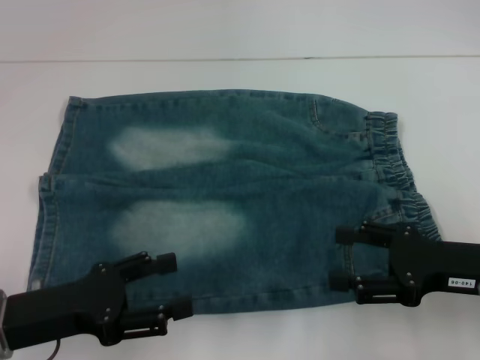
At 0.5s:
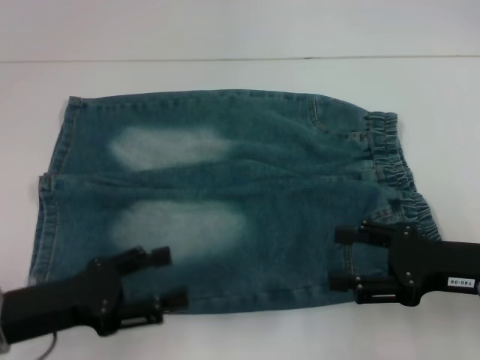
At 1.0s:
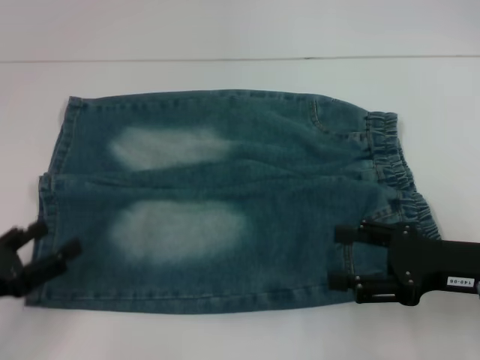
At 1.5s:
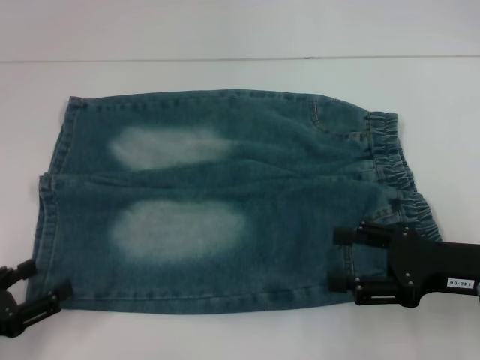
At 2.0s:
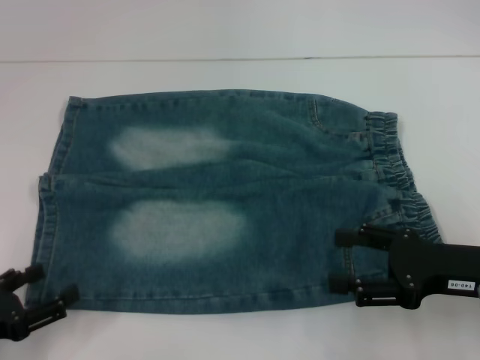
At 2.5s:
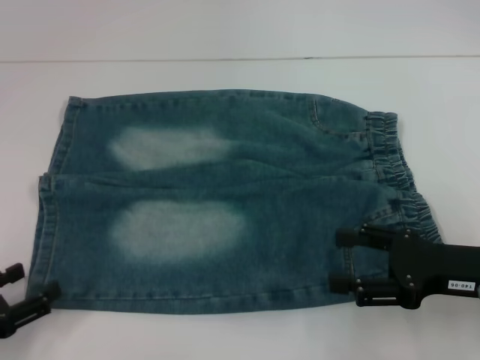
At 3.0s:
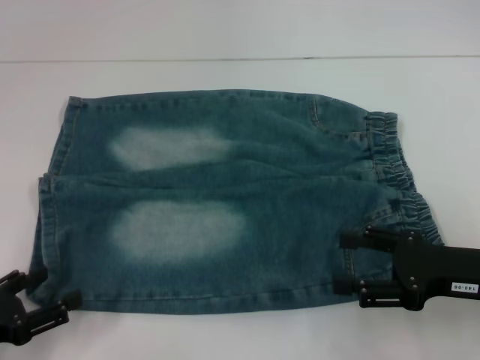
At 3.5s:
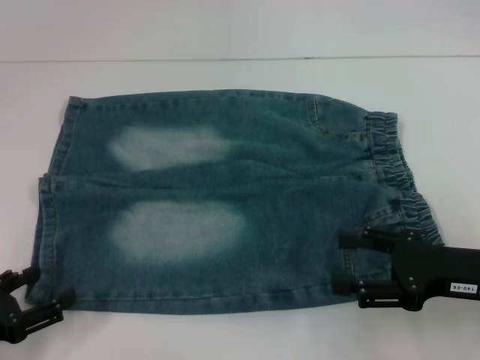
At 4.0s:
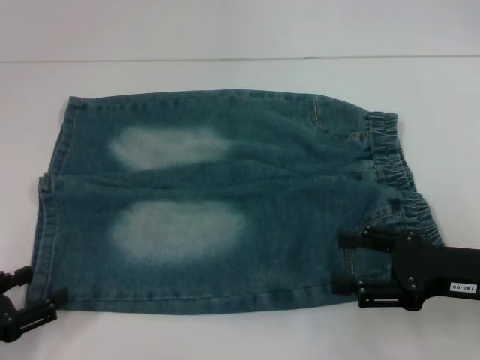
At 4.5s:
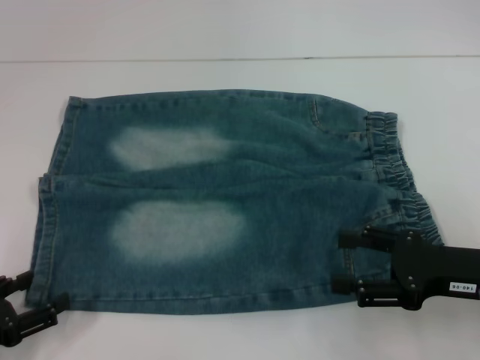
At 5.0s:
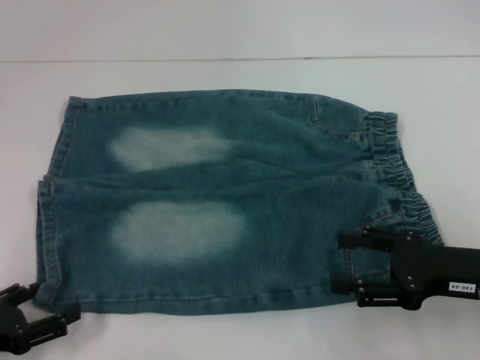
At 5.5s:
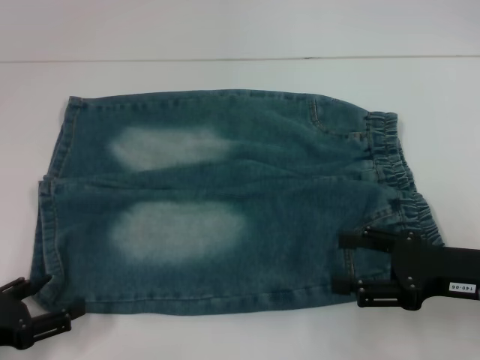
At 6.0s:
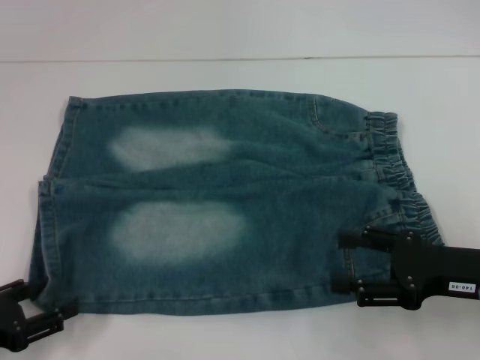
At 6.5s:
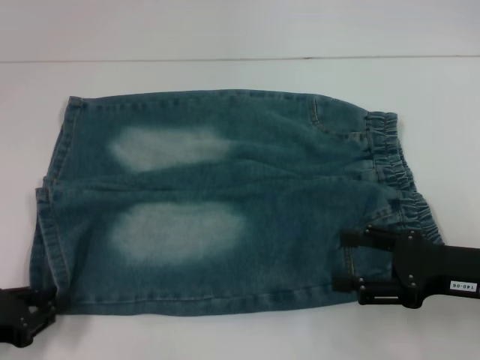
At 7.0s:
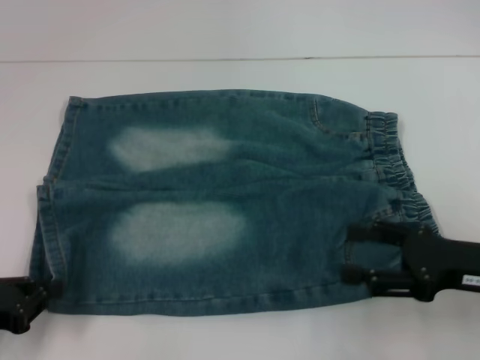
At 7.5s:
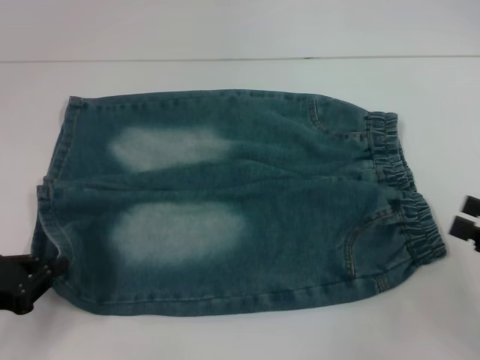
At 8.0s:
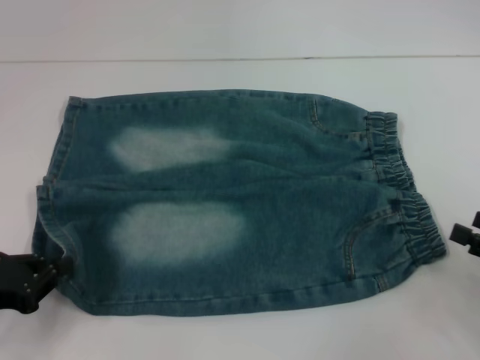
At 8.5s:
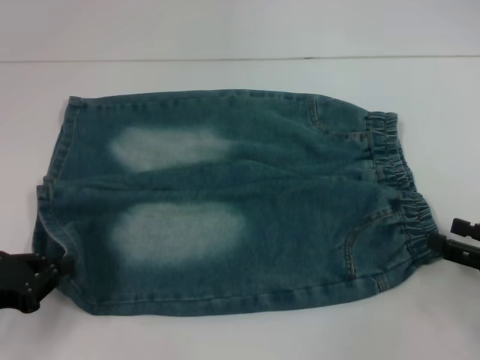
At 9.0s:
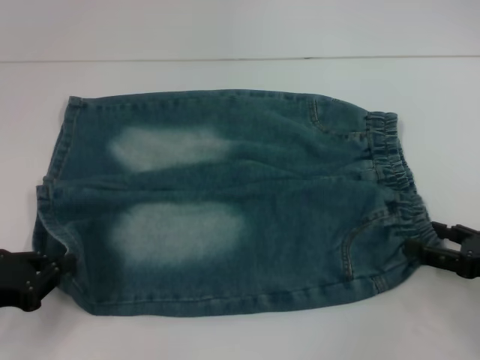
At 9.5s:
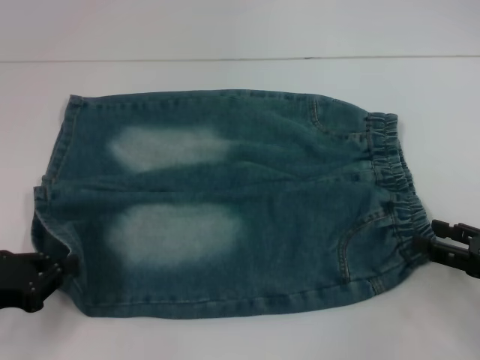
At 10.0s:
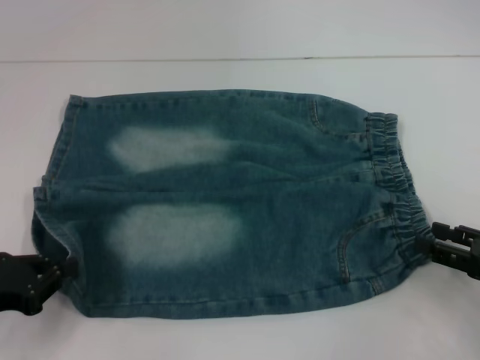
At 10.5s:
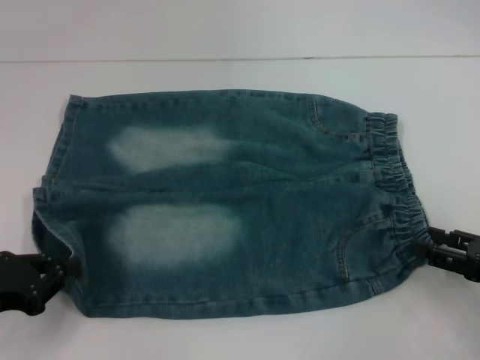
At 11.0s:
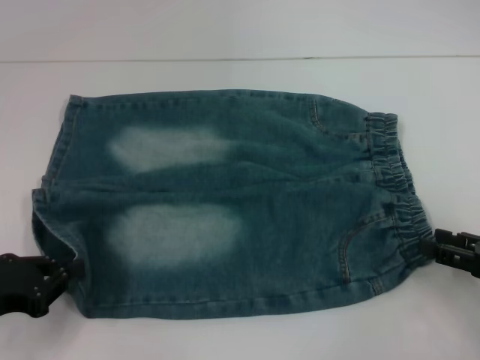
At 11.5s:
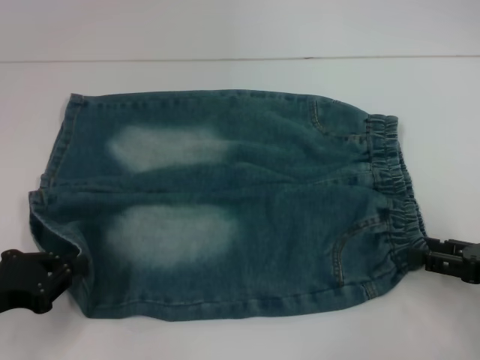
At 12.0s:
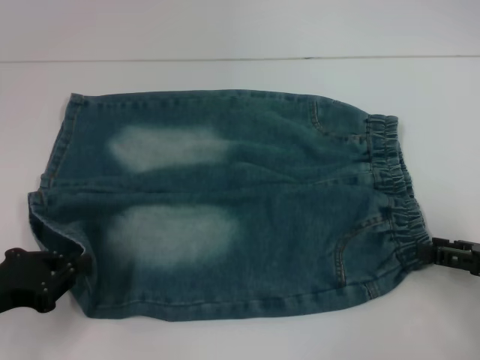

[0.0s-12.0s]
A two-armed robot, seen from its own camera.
Step, 0.0s to 6.0s: Grab the lower left pant leg with your left hand.
Step, 6.5s to 11.5s: Hold the lower right waistband with your right hand.
0.0s to 2.0s: The left gripper goes some 10 cm to the left.
2.0s to 6.0s: The grippers stay close to where they were, moving slightly.
6.0s to 8.0s: The right gripper is displaced to the right by about 10 cm; the left gripper closes.
8.0s to 12.0s: The grippers make only small movements.

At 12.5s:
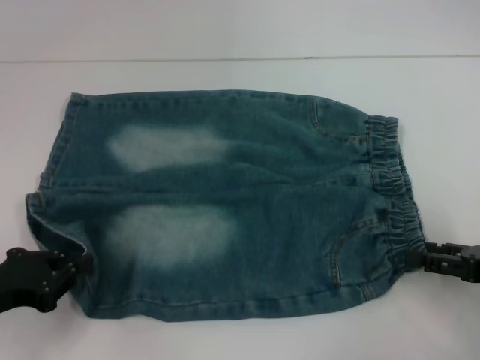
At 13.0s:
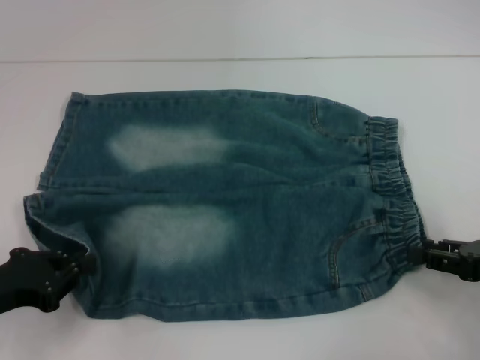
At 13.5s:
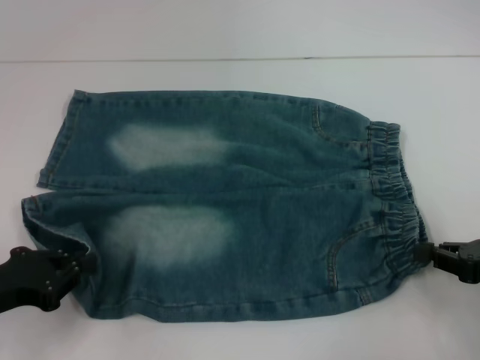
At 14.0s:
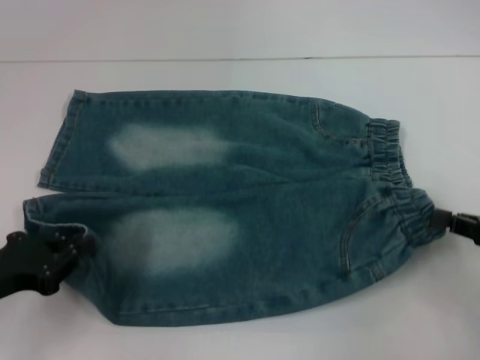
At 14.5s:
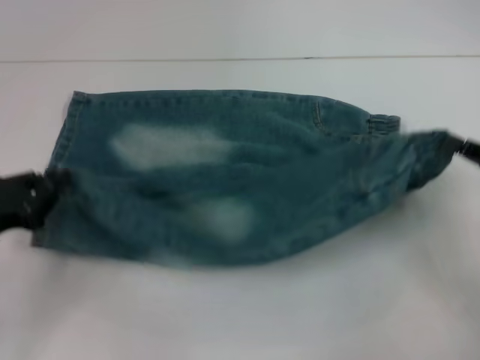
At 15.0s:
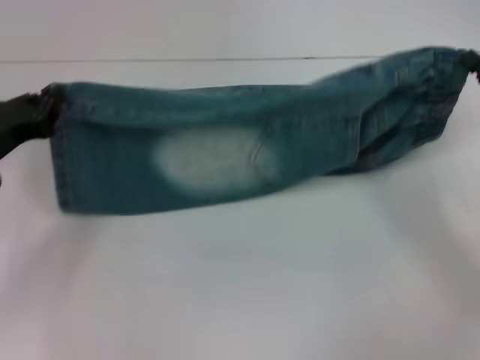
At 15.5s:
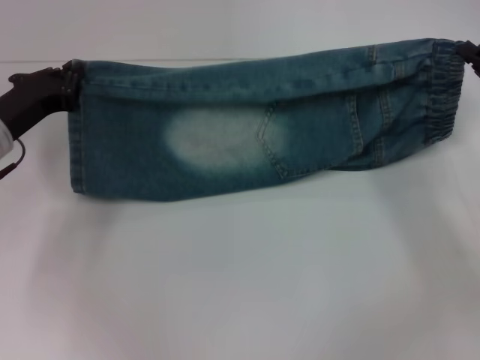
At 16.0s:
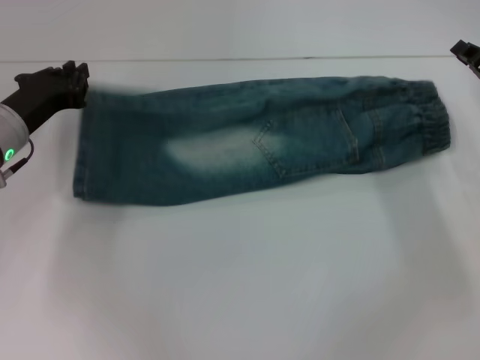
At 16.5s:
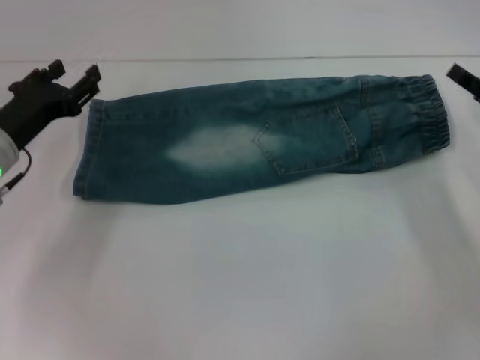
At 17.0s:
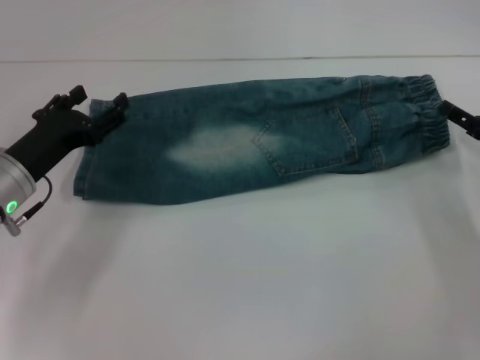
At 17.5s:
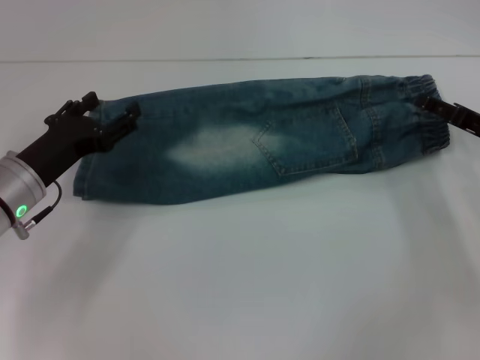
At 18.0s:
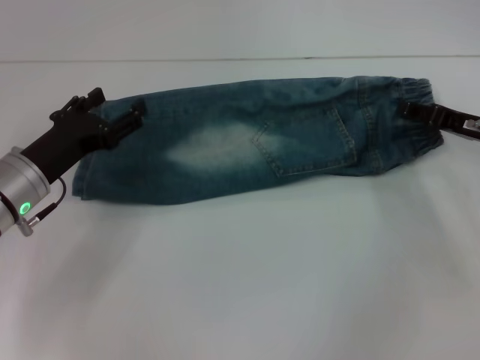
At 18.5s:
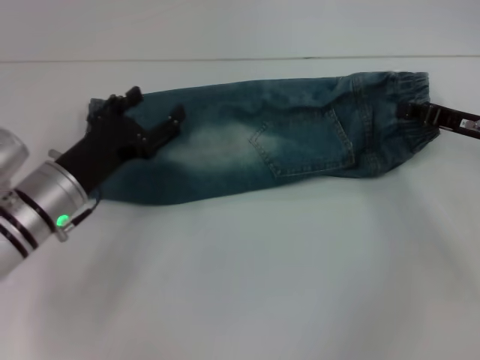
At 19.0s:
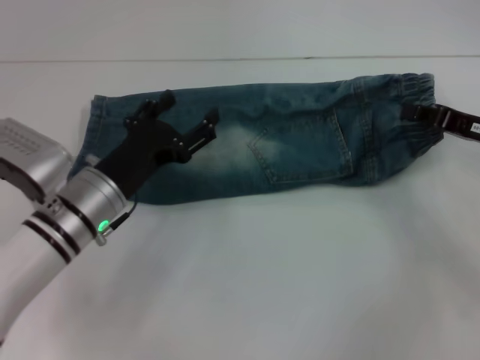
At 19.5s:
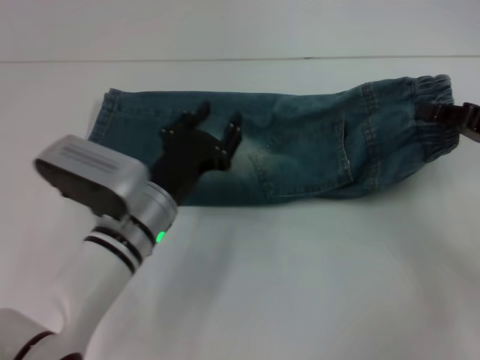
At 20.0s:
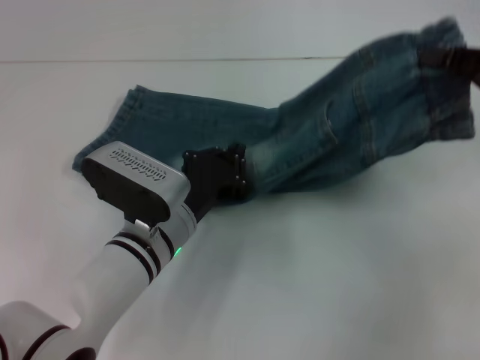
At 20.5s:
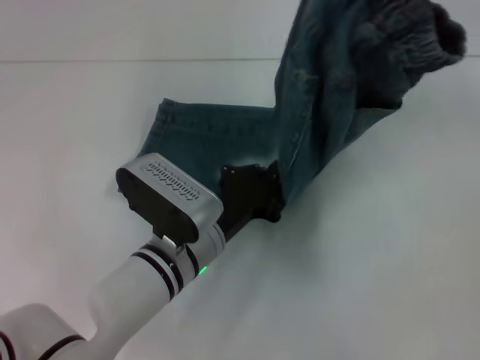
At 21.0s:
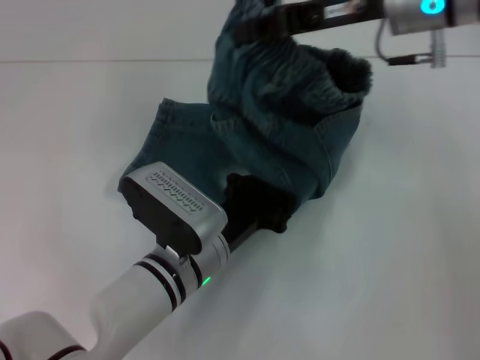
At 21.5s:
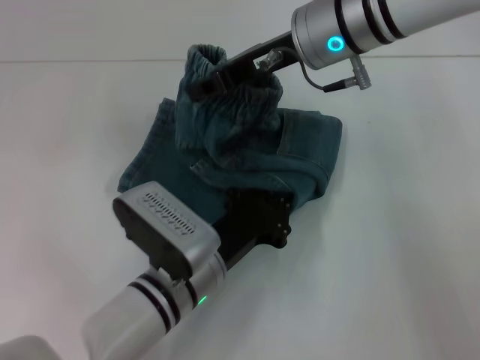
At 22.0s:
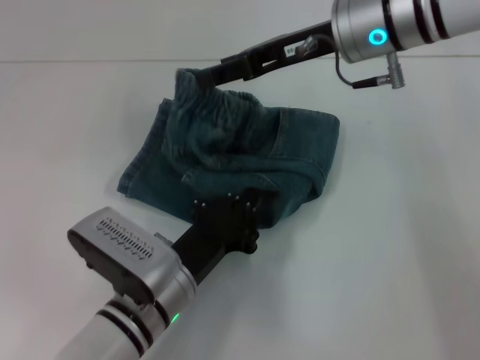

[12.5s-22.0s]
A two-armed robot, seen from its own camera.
Step, 12.5s to 16.0s: Fold upward with your right hand.
Step, 16.5s to 18.0s: Grab the waistband with your right hand.
Step, 18.5s to 21.0s: Press the middle of the pants with your left hand.
12.5s to 14.5s: The right gripper closes.
14.5s to 16.5s: The right gripper moves forward, about 5 cm, and opens up; the left gripper shifts some 10 cm forward, and opens up.
16.5s to 18.0s: The right gripper opens up. Meanwhile the left gripper opens up.
18.0s to 20.0s: The right gripper travels upward by roughly 10 cm, and closes up; the left gripper moves to the right, about 15 cm, and closes.
20.0s to 22.0s: The left gripper is displaced backward by roughly 5 cm, and closes, while the right gripper moves to the left and forward, approximately 20 cm, and opens.

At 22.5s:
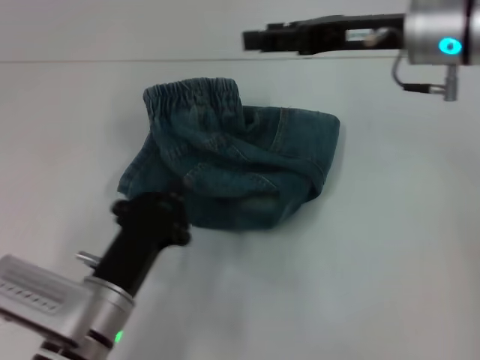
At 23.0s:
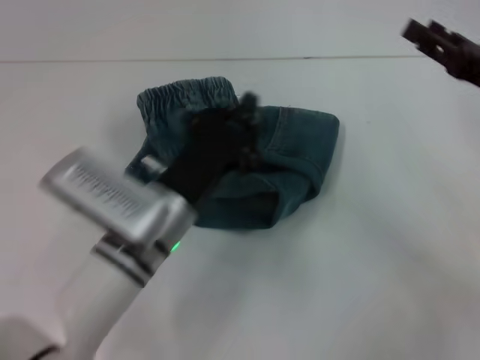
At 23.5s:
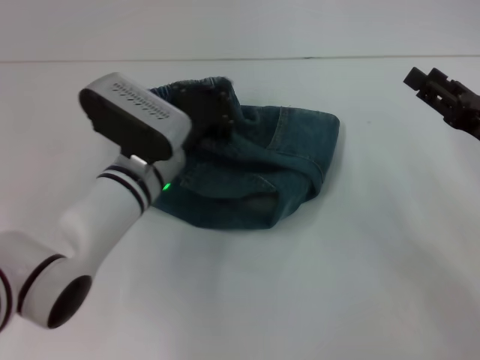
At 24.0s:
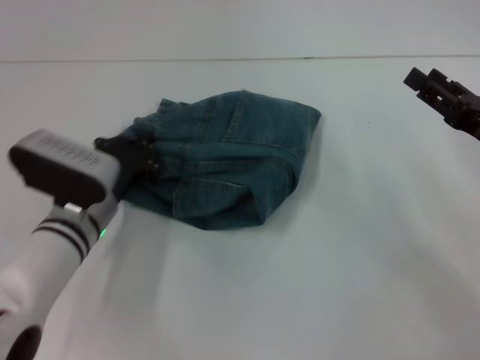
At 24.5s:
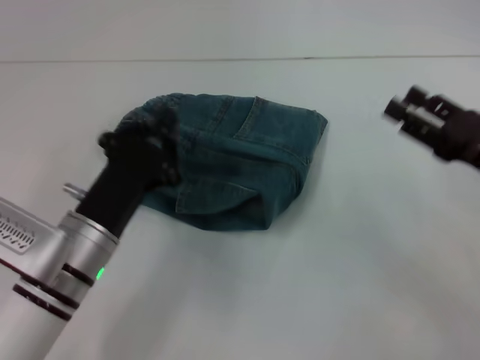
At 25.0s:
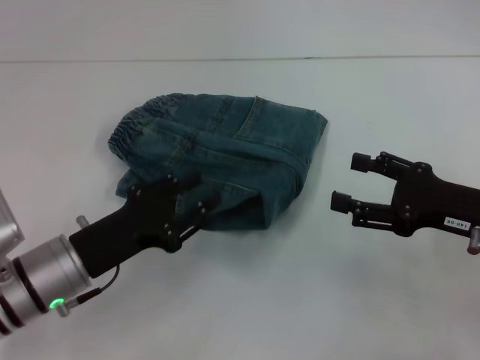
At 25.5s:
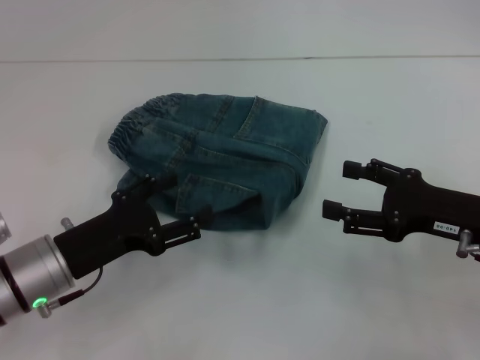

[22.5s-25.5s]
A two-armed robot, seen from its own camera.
Step, 22.5s to 24.0s: Adjust the pants with your left hand.
22.5s to 24.0s: The left gripper heads forward, covering about 10 cm, while the right gripper goes about 20 cm downward, to the right and backward.
24.0s to 25.5s: The left gripper moves backward, roughly 5 cm, and opens.
